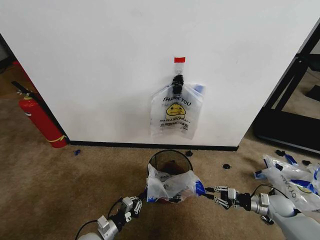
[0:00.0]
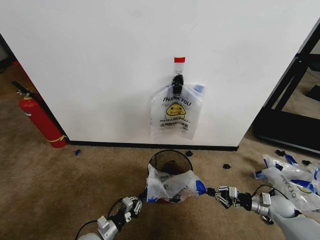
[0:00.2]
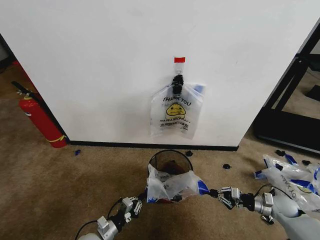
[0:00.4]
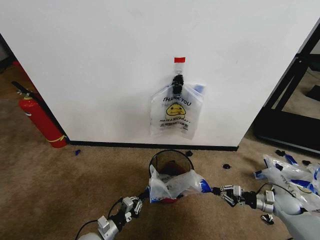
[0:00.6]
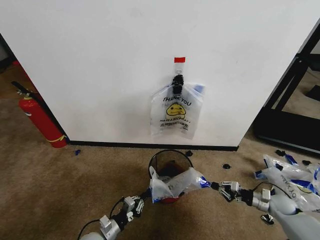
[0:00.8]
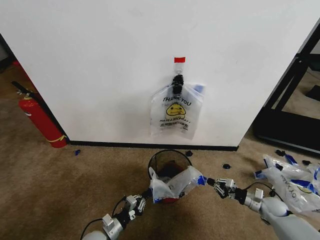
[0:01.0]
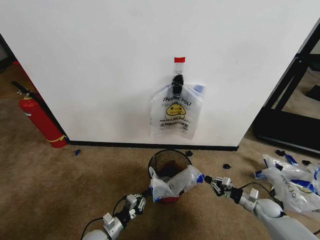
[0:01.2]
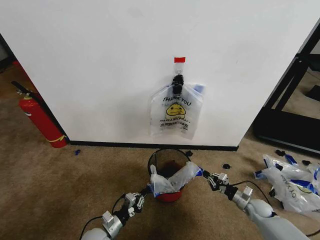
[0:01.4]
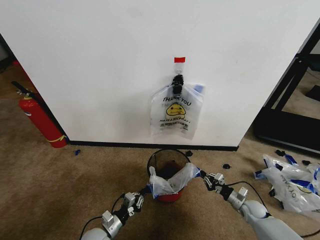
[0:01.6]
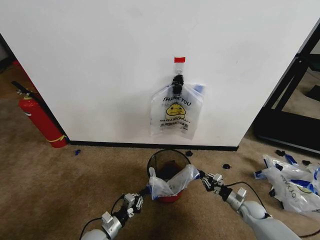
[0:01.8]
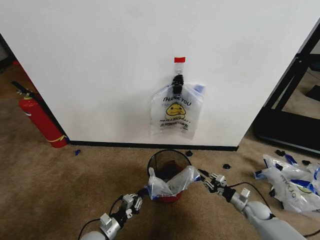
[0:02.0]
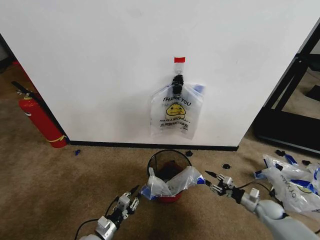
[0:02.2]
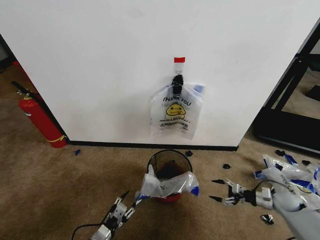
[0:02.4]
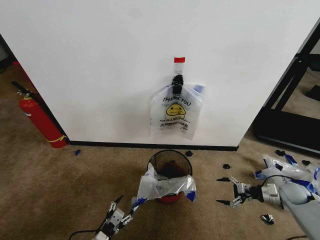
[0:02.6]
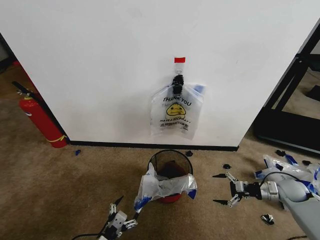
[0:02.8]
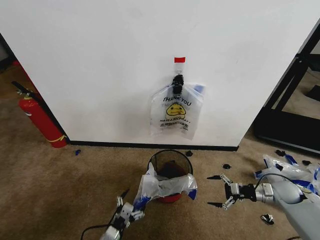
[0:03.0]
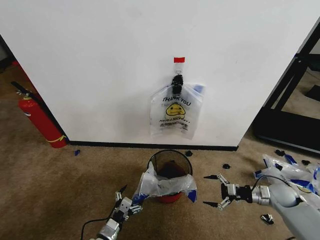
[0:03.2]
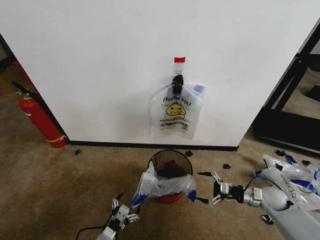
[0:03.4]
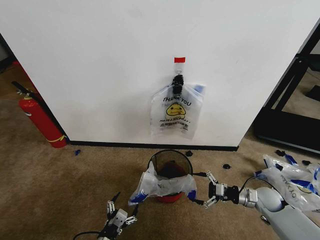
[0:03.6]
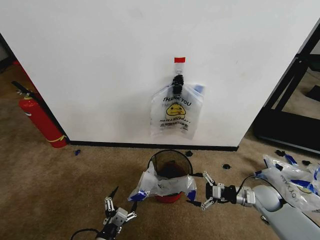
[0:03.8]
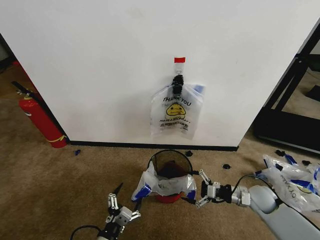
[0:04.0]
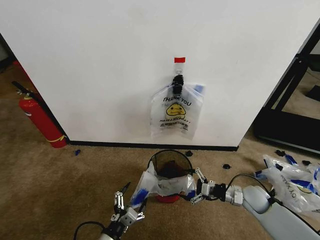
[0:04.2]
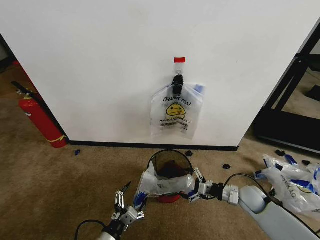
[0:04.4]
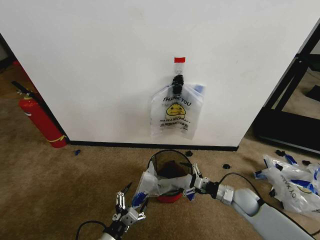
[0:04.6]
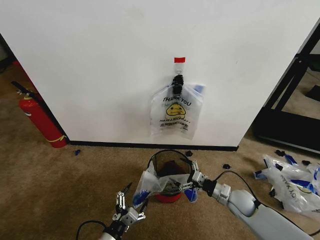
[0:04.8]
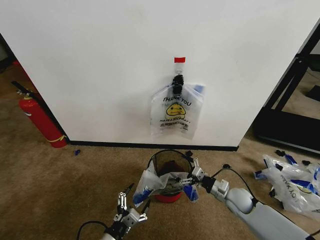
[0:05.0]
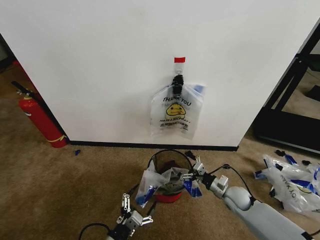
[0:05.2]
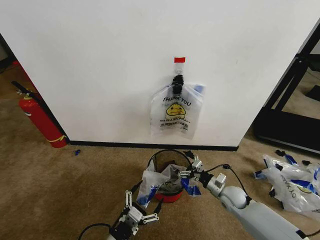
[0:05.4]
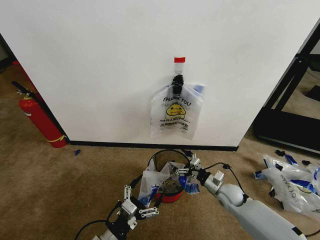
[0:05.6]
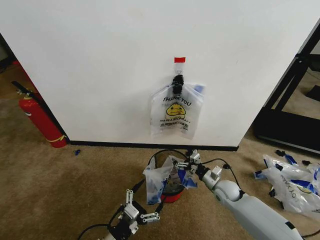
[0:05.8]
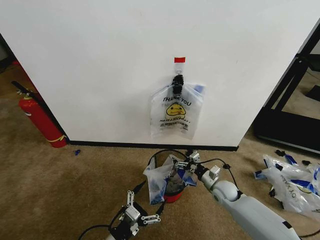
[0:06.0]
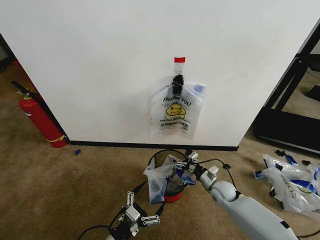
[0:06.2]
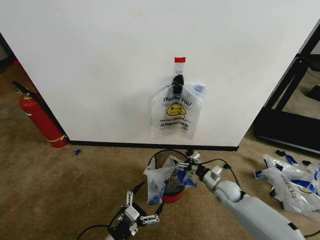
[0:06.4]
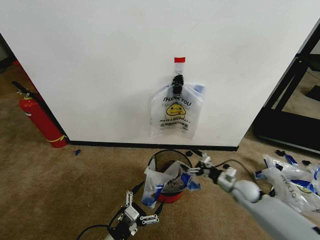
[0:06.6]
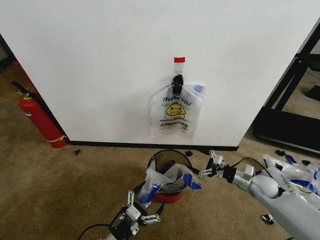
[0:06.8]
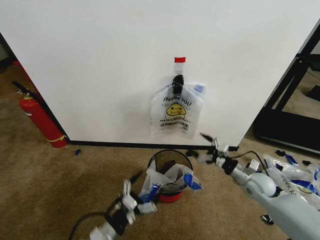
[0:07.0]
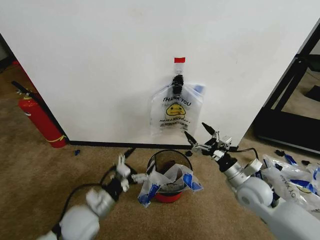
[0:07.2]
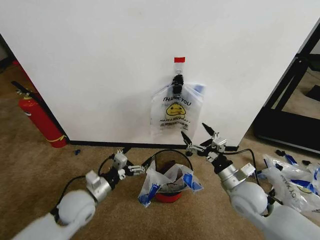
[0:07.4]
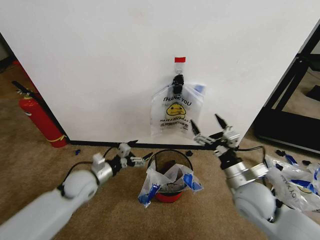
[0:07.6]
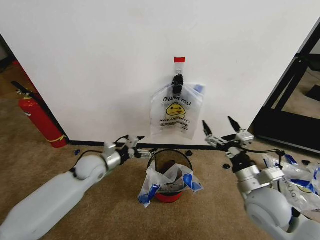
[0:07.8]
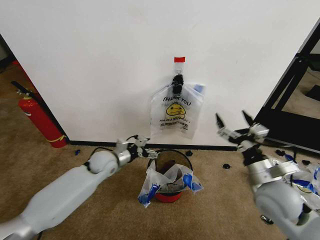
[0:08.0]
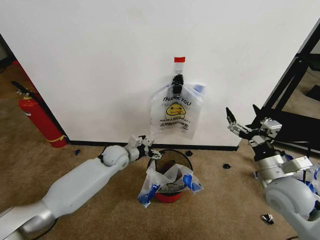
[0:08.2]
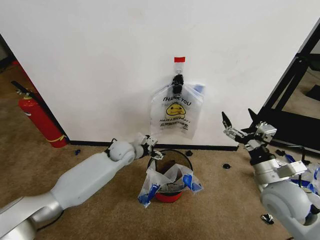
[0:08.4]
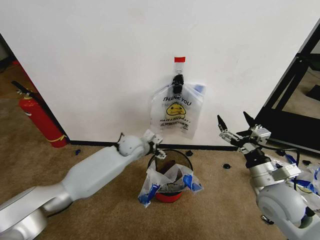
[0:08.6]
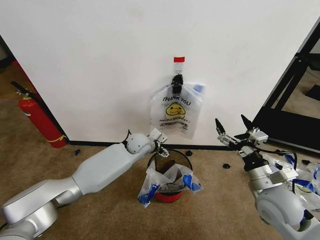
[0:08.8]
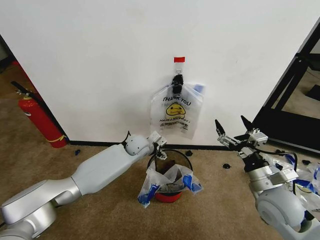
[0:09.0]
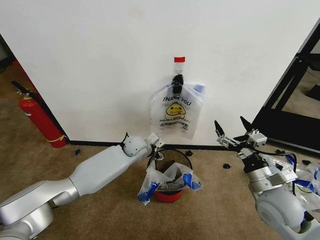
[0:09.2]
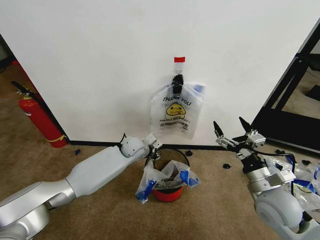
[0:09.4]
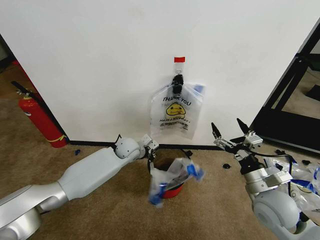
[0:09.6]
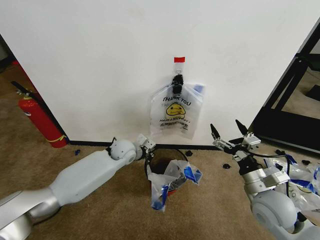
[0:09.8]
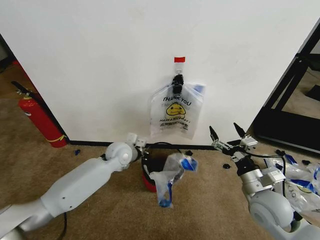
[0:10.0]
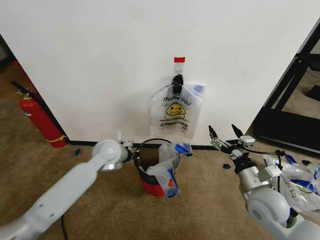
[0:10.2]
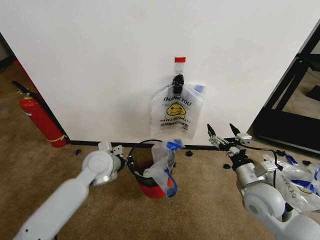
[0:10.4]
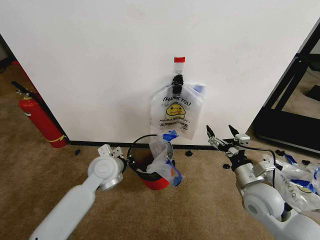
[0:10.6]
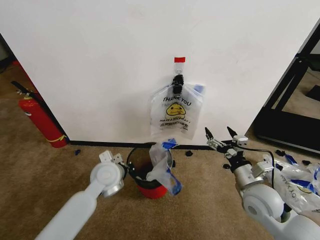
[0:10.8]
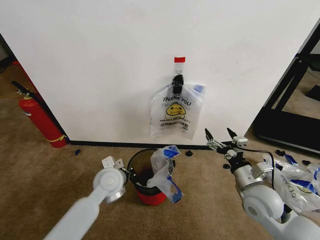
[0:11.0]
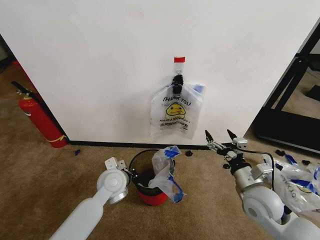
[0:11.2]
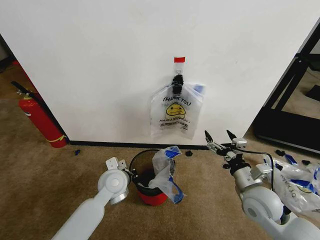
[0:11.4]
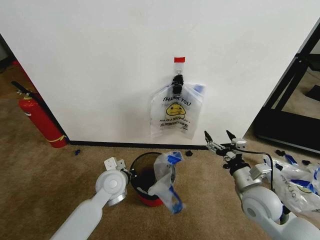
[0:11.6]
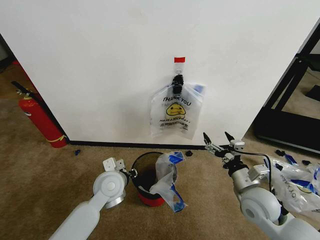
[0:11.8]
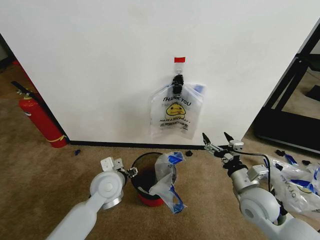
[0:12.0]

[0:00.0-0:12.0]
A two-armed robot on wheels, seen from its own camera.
Task of the whole recording: Pick up the garbage bag from the wall and place it over the trash bin.
0:00.0 to 0:01.6: The right gripper heads downward and to the left, covering roughly 10 cm.
0:01.6 to 0:03.0: The left gripper is displaced backward by some 5 cm, and opens up. Meanwhile the right gripper goes some 15 cm upward and to the right, and opens up.
0:03.0 to 0:04.4: The right gripper goes approximately 15 cm to the left. The left gripper moves upward, about 10 cm.
0:04.4 to 0:06.0: The right gripper goes some 10 cm to the left.
0:06.0 to 0:07.6: The right gripper is displaced upward and backward by roughly 20 cm. The left gripper moves forward, approximately 20 cm.
0:07.6 to 0:09.0: The left gripper moves to the right and forward, approximately 25 cm. The right gripper is displaced to the right by about 5 cm.
0:09.0 to 0:10.4: The left gripper shifts approximately 15 cm backward, to the left and upward, and closes.
0:10.4 to 0:12.0: The left gripper moves backward, approximately 5 cm, and opens its fingers.

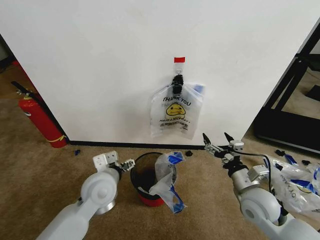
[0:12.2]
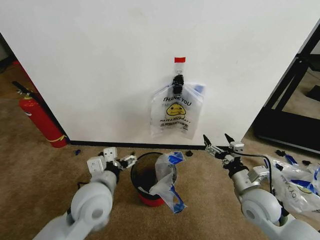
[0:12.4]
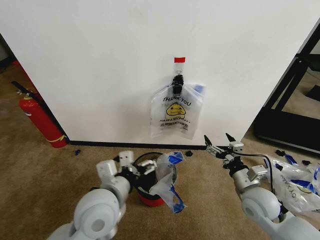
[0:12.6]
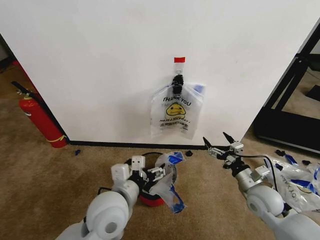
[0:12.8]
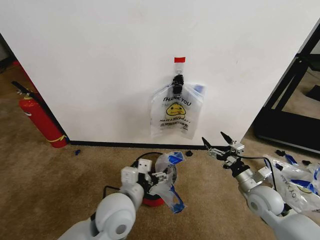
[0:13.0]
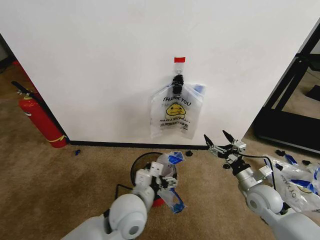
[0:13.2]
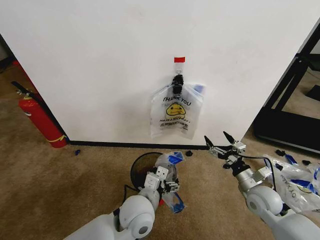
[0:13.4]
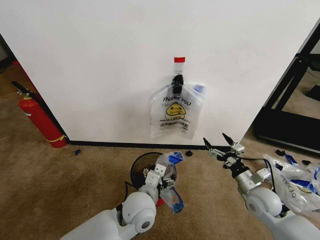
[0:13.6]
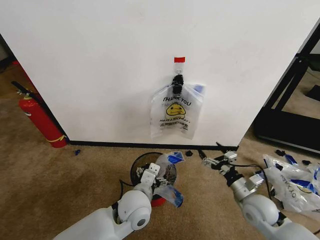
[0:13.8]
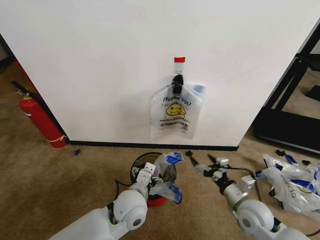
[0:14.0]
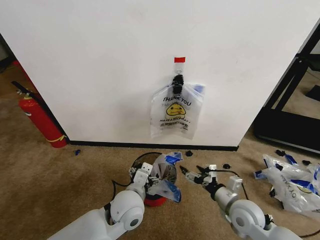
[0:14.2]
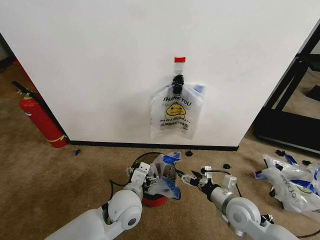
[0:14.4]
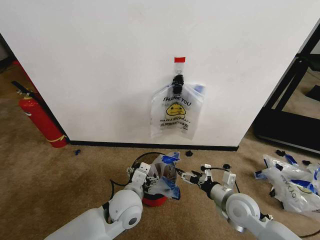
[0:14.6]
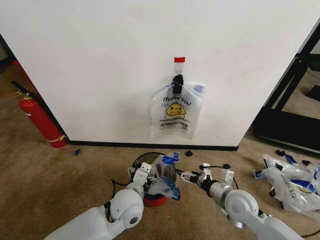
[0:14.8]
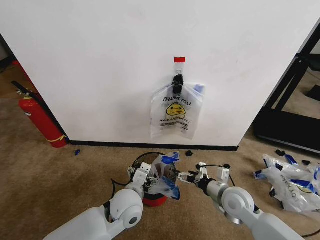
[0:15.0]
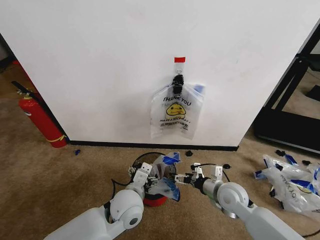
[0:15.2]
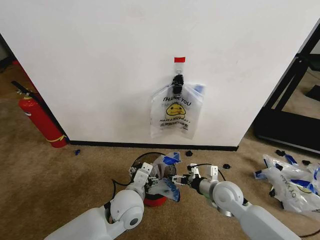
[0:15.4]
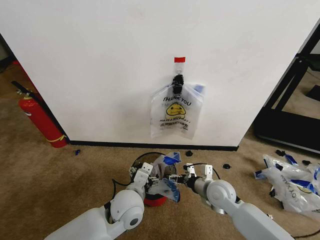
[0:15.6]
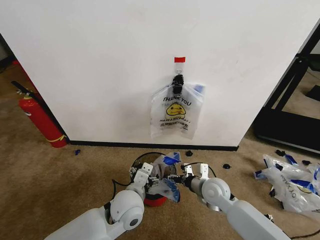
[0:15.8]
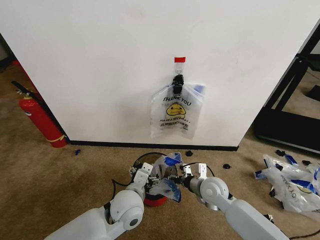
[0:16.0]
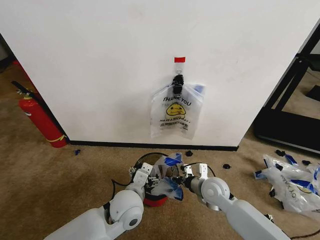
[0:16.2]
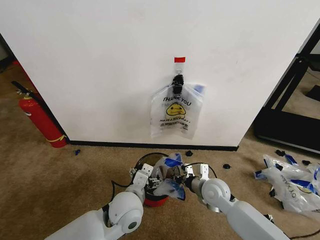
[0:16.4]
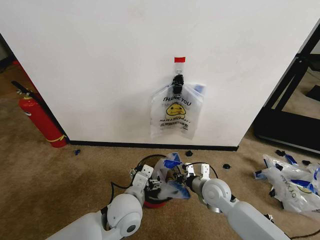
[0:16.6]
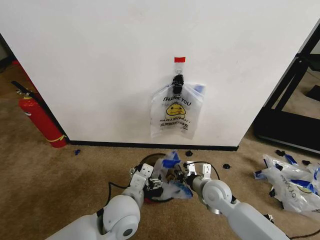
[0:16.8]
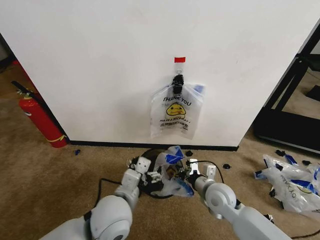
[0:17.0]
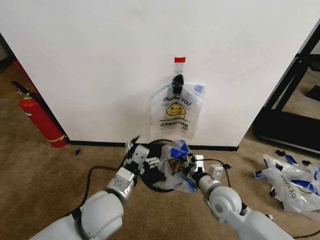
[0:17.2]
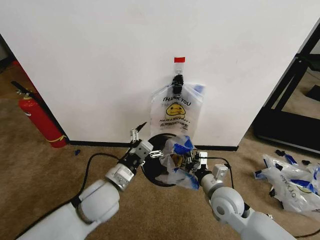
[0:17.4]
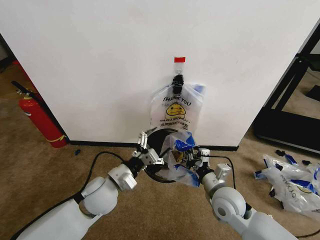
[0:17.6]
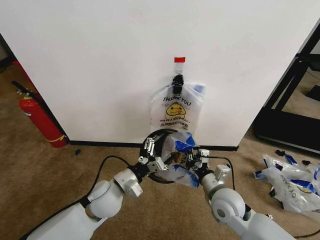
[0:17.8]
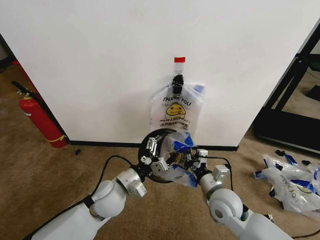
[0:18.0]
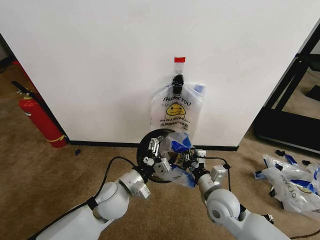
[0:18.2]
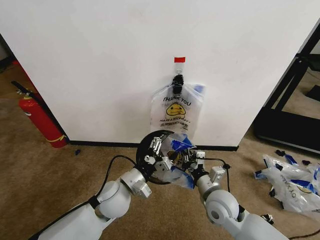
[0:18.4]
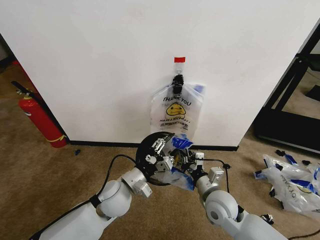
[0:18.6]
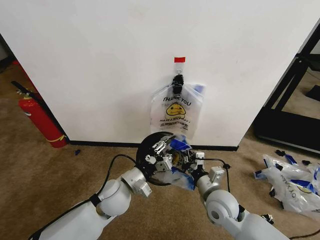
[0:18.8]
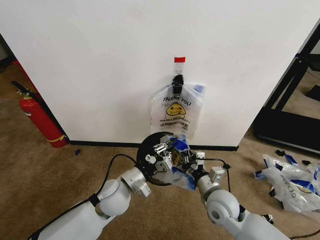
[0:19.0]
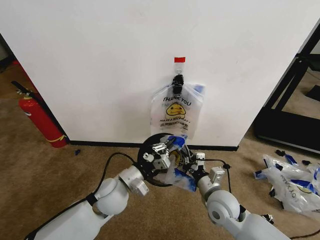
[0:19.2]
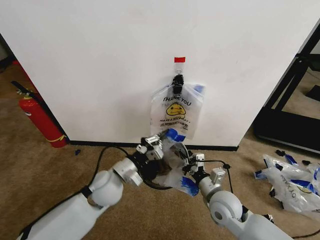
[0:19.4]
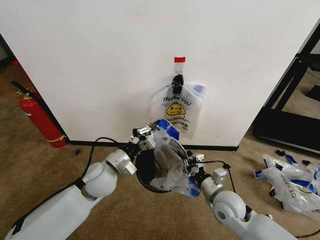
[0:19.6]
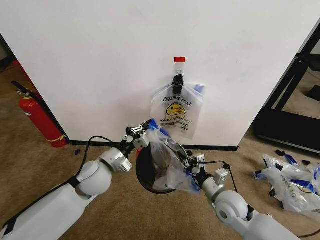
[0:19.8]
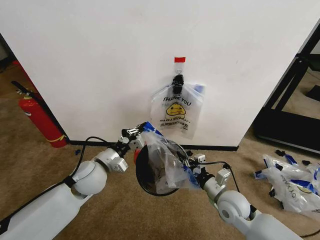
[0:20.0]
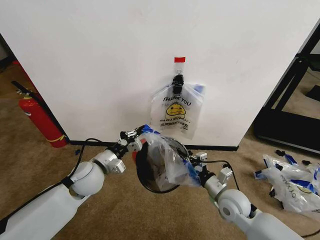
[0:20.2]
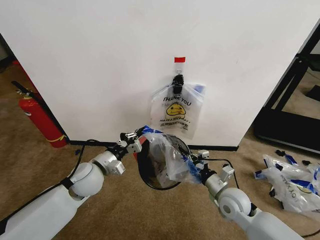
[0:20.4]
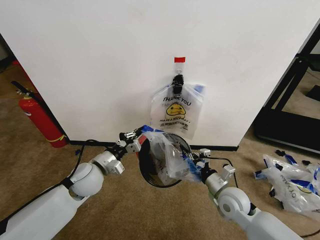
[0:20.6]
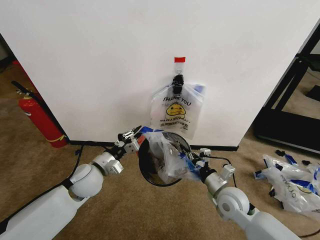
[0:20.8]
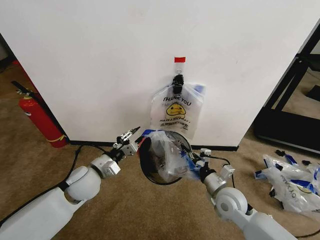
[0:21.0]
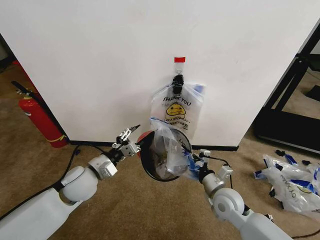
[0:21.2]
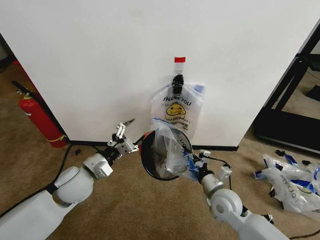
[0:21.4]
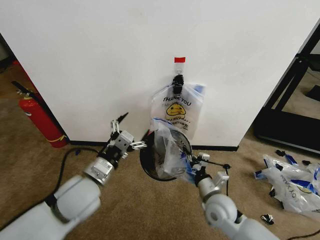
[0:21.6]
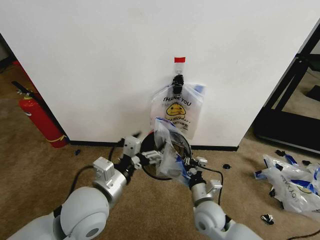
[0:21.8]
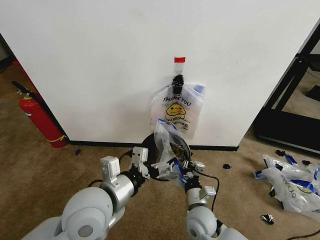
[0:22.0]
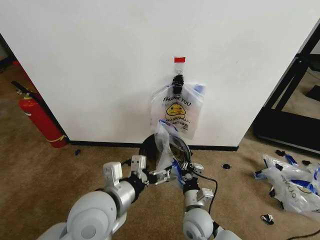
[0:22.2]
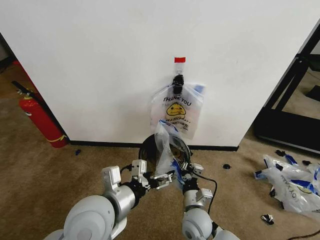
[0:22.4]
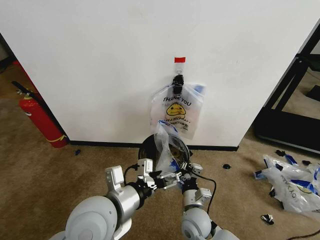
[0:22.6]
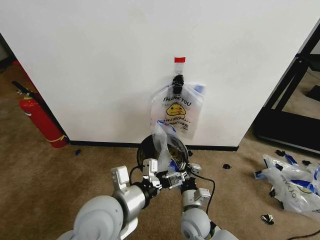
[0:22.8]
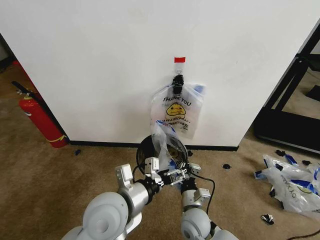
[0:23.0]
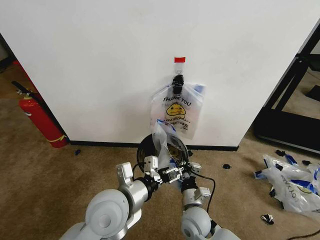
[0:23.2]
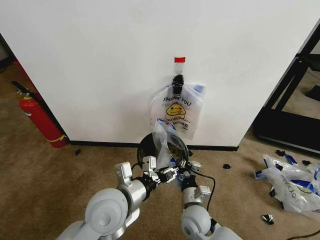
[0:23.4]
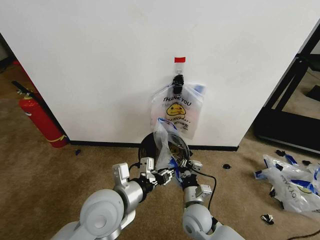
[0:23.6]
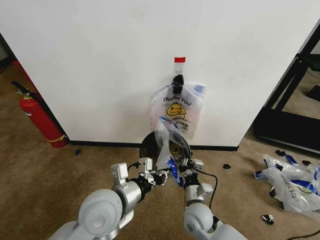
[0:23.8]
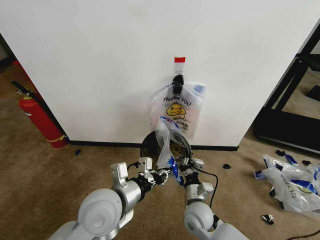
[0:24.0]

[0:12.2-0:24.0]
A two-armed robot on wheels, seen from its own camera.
Task of the whole recording: Pick up the garbage bag from the wall and place it over the trash bin.
0:12.2 to 0:13.6: The right gripper heads downward and to the right, covering approximately 10 cm. Meanwhile the left gripper heads to the right and downward, covering roughly 15 cm.
0:13.6 to 0:15.2: The right gripper is displaced to the left by approximately 10 cm.
0:15.2 to 0:16.6: The right gripper moves about 5 cm, and closes.
0:16.6 to 0:18.2: The right gripper travels backward by some 5 cm.
0:18.2 to 0:19.6: The left gripper shifts by some 5 cm, and closes up.
0:19.6 to 0:21.0: The left gripper travels to the left by about 5 cm, and opens its fingers.
0:21.0 to 0:22.6: The left gripper heads backward, to the right and upward, covering some 20 cm, and opens its fingers. Meanwhile the right gripper moves to the left, downward and backward, some 15 cm.
0:22.6 to 0:24.0: The left gripper closes up.
